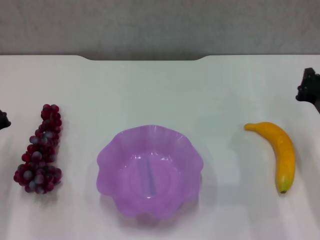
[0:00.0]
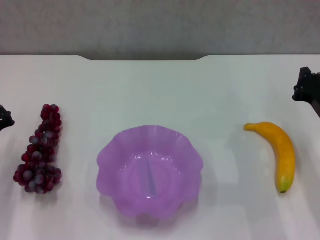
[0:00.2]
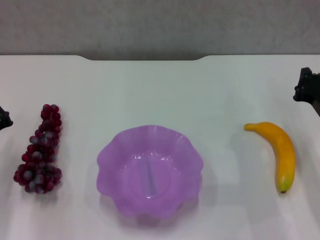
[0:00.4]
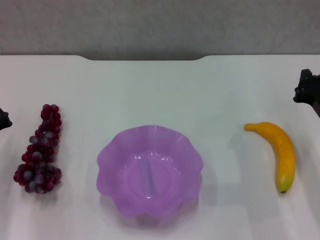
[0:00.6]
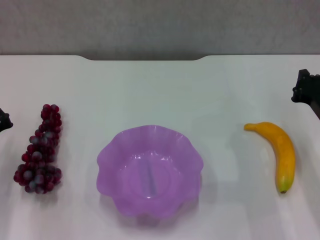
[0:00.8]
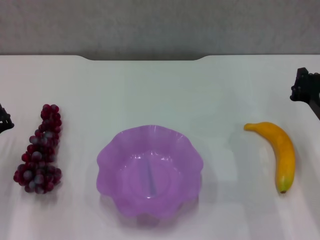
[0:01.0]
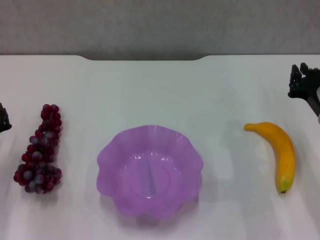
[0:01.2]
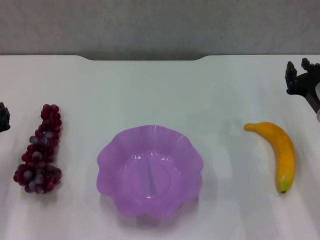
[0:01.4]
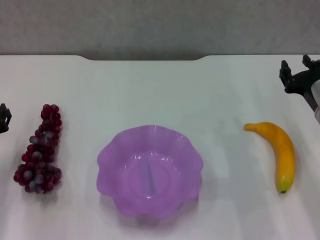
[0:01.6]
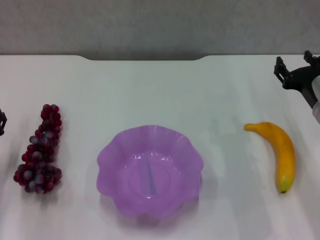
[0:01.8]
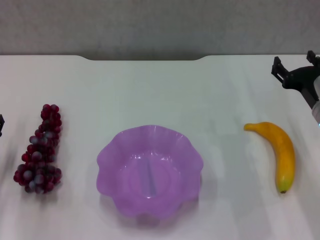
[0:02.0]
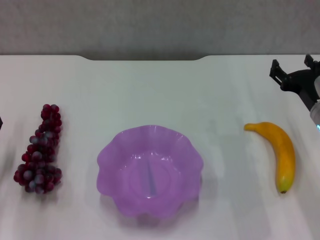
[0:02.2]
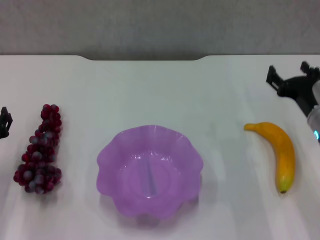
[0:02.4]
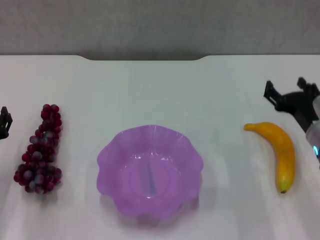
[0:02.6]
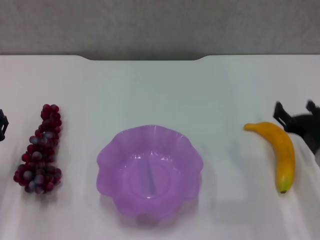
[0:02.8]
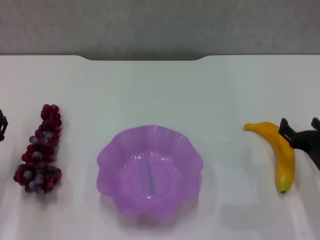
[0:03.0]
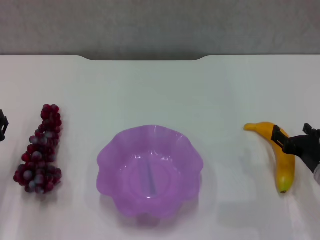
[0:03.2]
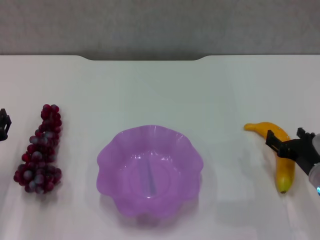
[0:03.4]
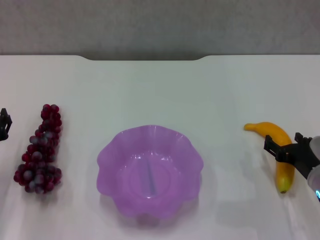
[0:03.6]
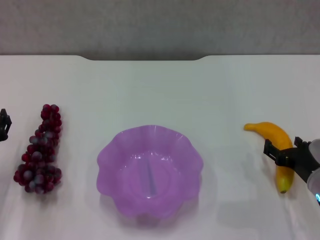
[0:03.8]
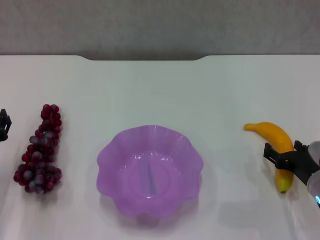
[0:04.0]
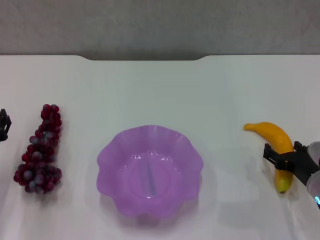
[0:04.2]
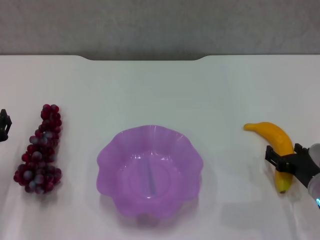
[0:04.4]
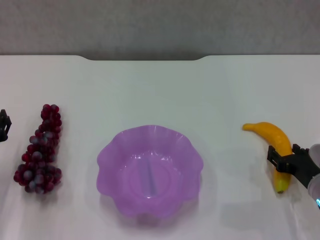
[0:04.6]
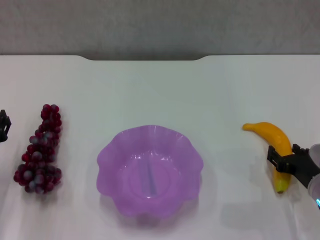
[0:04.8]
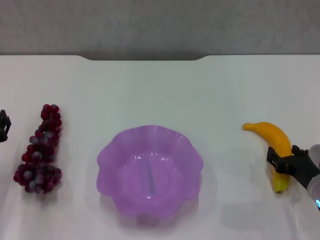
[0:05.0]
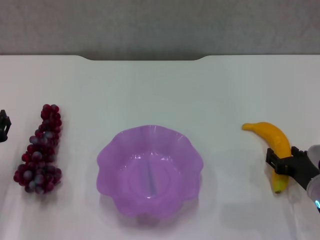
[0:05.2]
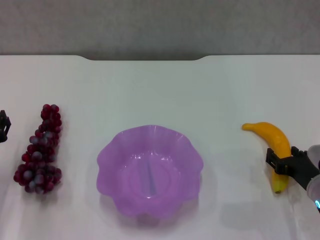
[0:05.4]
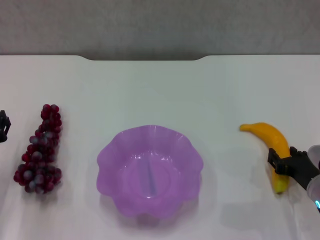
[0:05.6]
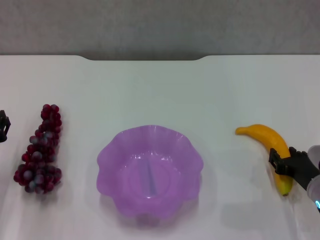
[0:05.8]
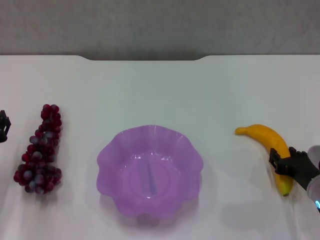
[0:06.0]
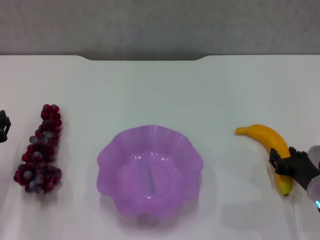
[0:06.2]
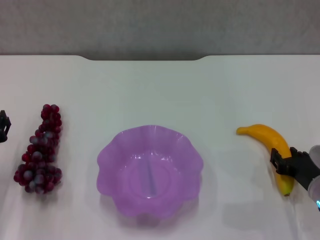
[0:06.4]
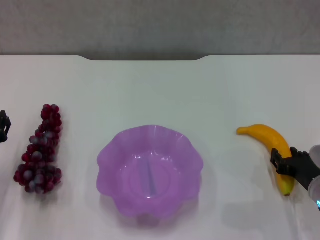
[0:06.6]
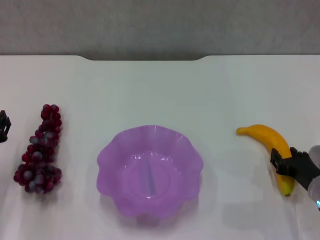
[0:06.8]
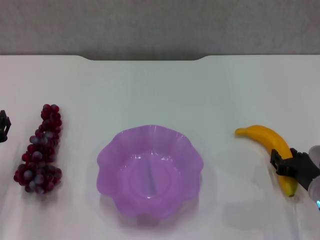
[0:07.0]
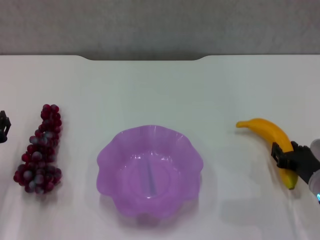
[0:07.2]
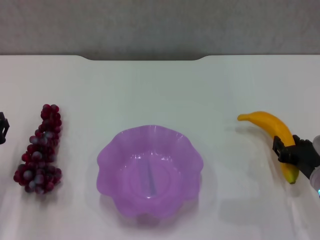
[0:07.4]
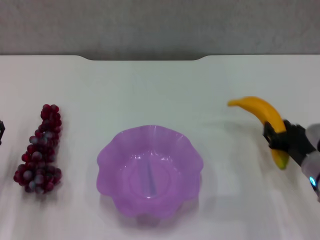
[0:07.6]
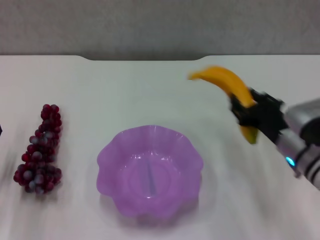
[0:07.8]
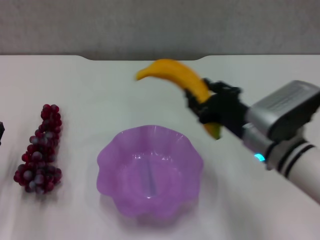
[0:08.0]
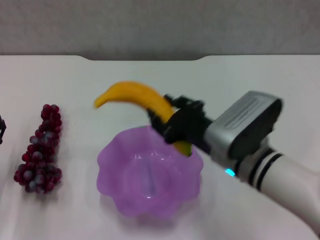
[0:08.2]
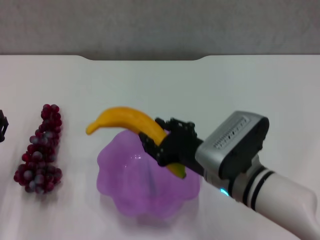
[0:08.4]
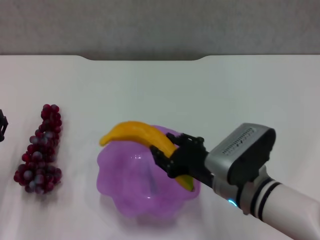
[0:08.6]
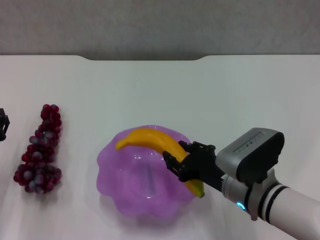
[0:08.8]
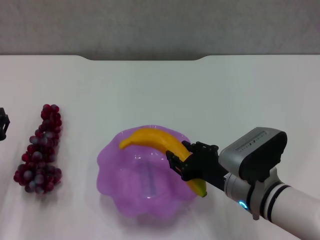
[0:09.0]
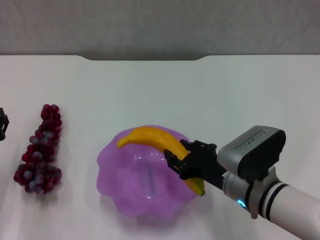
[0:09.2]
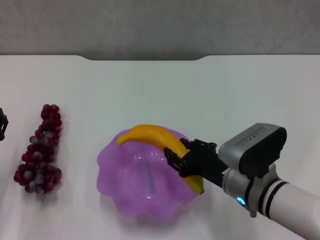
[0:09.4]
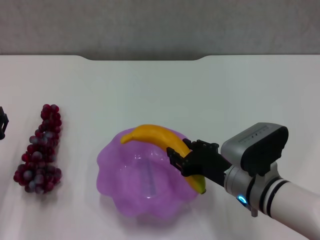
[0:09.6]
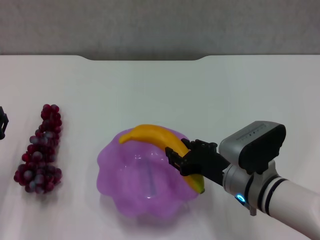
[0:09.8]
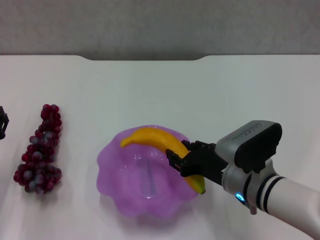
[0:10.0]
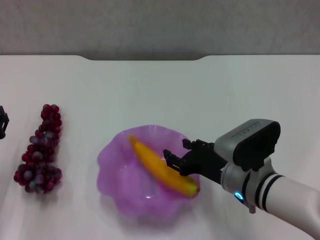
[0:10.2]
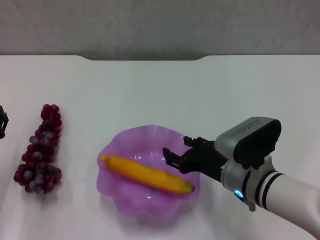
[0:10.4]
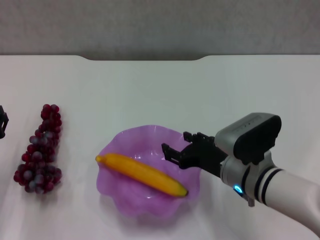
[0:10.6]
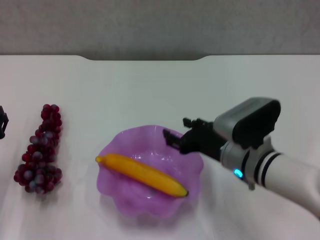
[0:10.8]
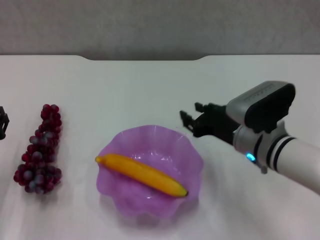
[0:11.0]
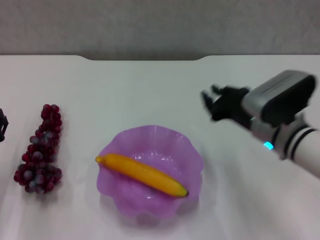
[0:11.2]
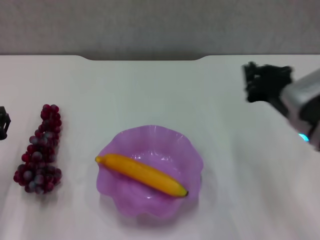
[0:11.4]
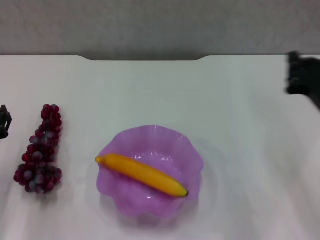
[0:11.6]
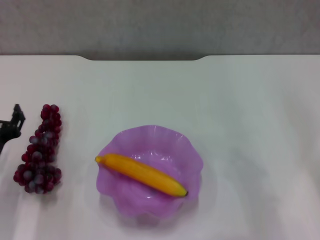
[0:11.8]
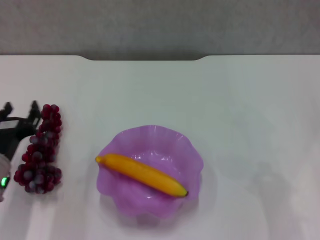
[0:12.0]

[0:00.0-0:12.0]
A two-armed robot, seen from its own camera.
Step, 0:00.0 to 0:06.0: Grasp the banana with right gripper.
Step, 0:06.4 to 0:10.4: Place the banana in the purple plate with right gripper.
0:01.6 to 0:03.0: The right gripper shifts roughly 10 cm backward and downward, and opens up.
0:03.0 to 0:04.4: The grippers make only small movements.
0:04.4 to 0:06.0: The right gripper closes up.
0:06.0 to 0:07.6: The grippers make only small movements.
0:07.6 to 0:09.0: The right gripper goes approximately 10 cm to the left.
0:09.0 to 0:10.4: The grippers move only a little.
0:10.4 to 0:12.0: The right gripper moves to the right, roughly 20 cm, and closes.

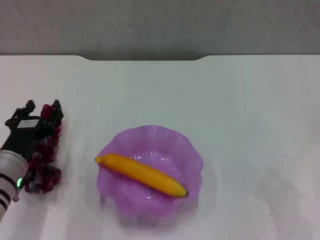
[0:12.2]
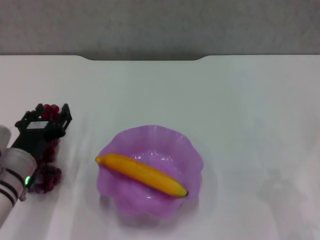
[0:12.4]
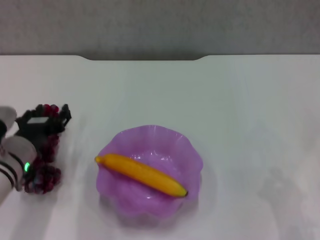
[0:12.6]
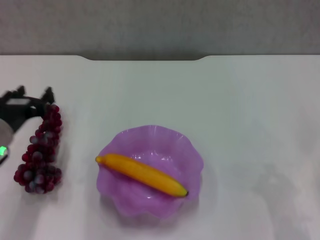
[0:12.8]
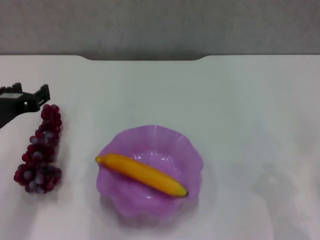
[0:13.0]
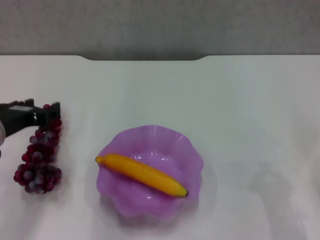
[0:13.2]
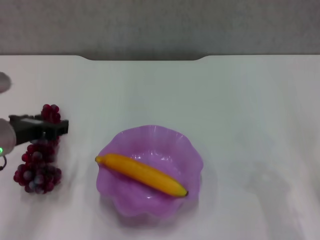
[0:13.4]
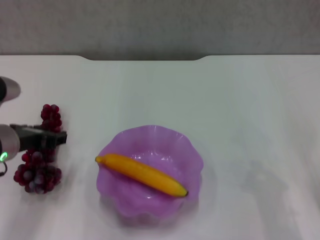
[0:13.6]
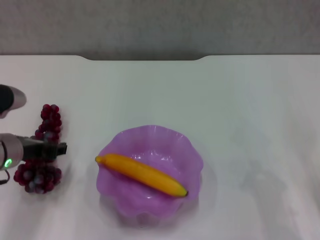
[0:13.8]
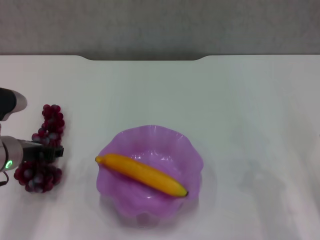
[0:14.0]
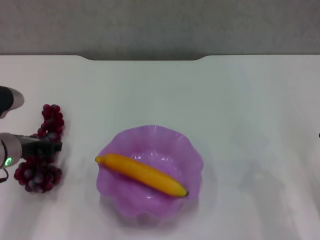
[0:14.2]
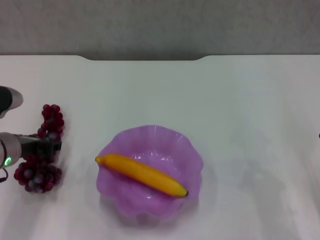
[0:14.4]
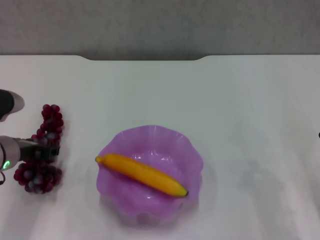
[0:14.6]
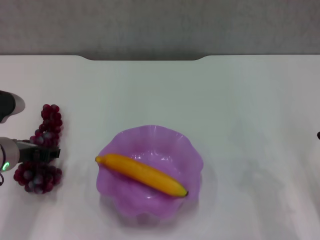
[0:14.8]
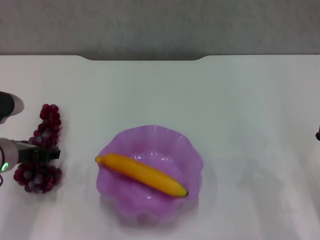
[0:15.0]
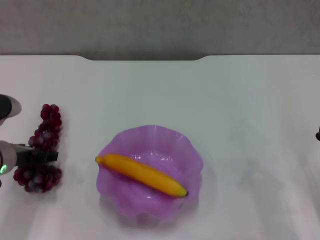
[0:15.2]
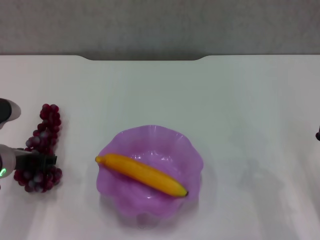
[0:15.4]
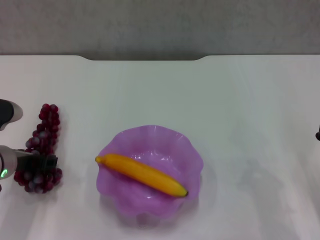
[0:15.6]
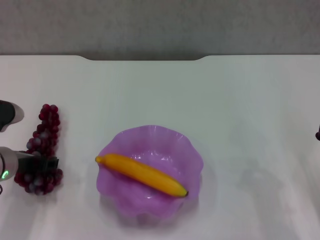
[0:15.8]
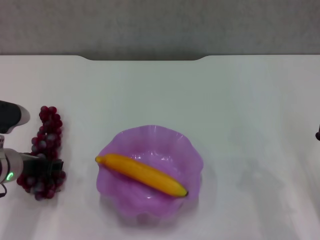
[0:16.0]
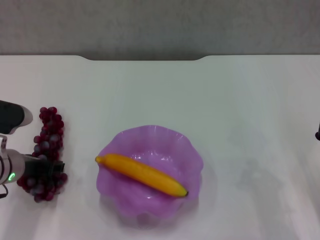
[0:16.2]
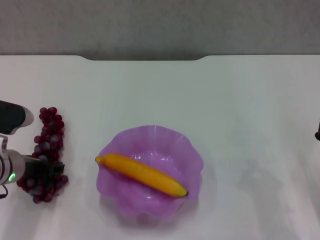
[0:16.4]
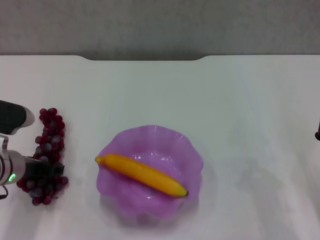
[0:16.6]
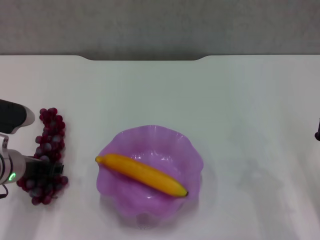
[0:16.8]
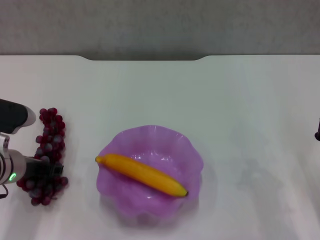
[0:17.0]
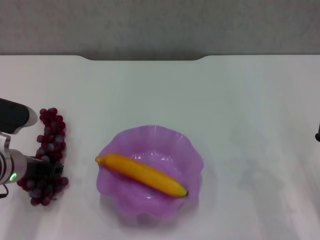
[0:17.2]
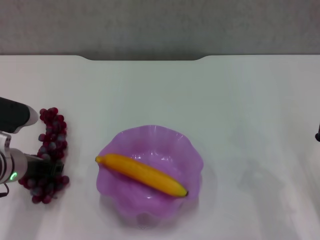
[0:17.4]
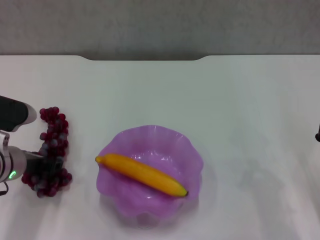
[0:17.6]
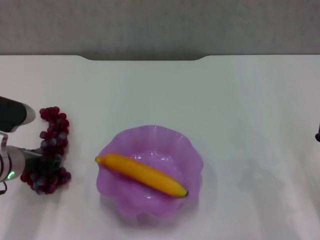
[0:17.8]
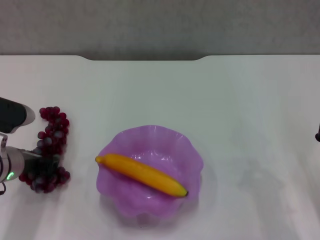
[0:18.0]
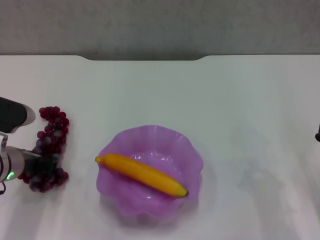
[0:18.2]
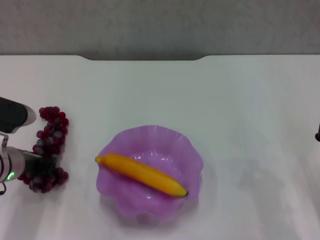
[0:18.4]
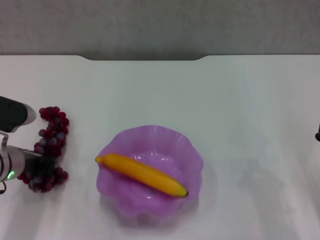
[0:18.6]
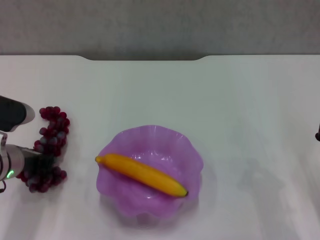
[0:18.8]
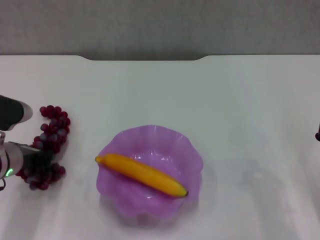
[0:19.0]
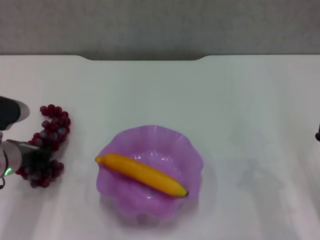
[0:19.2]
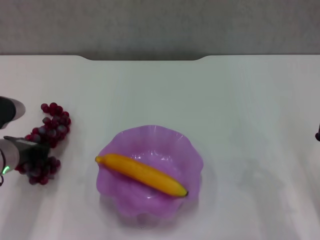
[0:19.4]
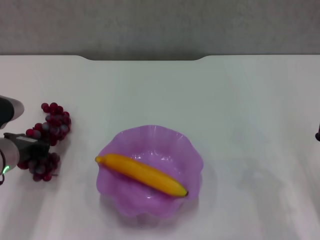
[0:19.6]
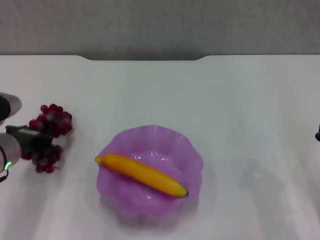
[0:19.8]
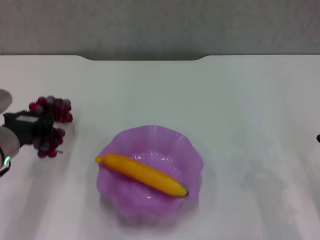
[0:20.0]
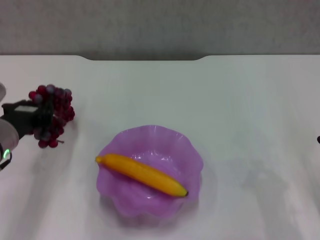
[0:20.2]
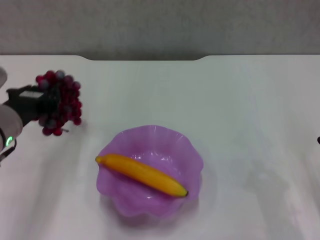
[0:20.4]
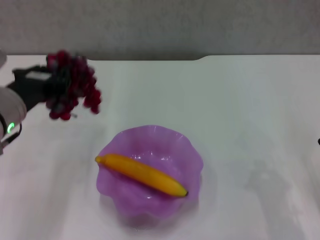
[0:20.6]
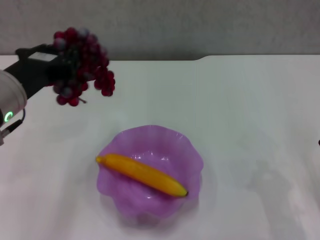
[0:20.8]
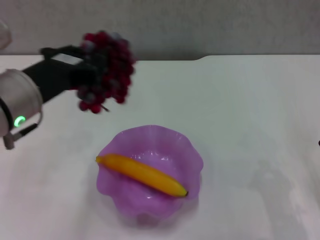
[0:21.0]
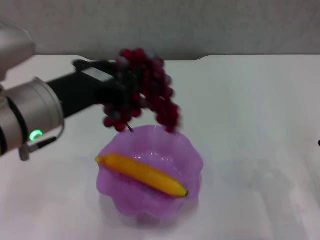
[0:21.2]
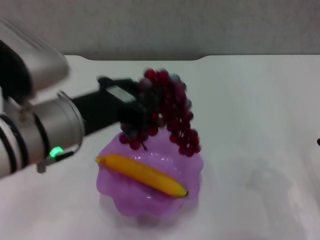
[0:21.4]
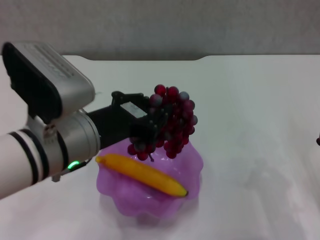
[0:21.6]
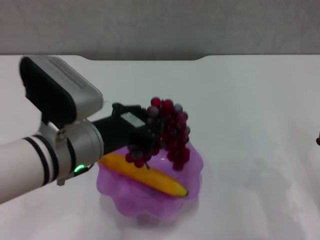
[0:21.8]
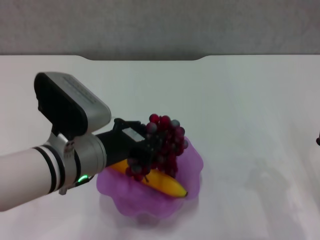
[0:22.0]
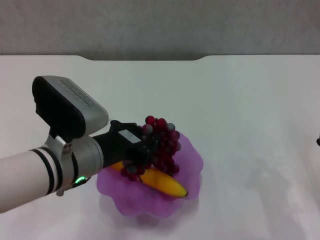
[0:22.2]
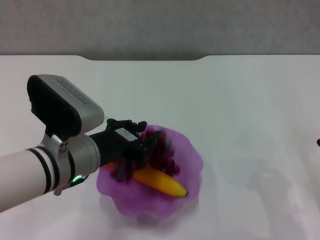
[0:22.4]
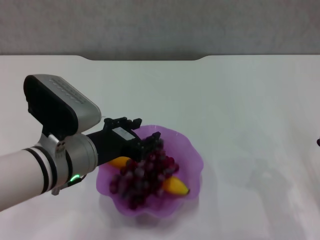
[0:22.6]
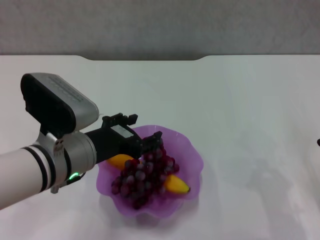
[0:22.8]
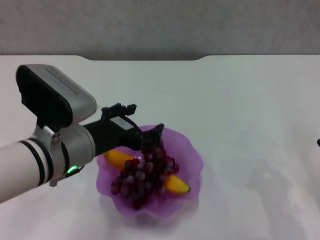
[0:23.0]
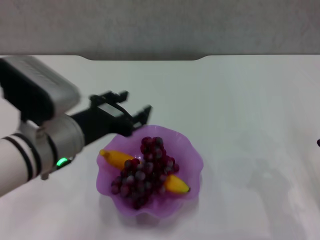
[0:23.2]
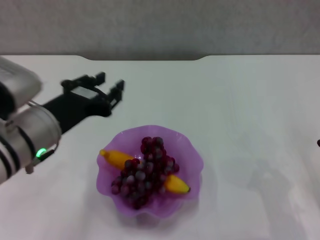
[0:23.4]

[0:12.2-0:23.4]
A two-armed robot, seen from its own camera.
Step, 0:12.2 to 0:18.6: Grasp the grape with left gripper.
Step, 0:18.8 to 0:22.8: Place the grape in the purple plate with left gripper.
0:12.2 to 0:13.8: The left gripper goes about 5 cm upward.
0:13.8 to 0:17.0: The grippers make only small movements.
0:17.0 to 0:18.6: The left gripper closes its fingers.
0:20.2 to 0:21.8: The left gripper travels to the right by roughly 10 cm.
0:21.8 to 0:23.4: The left gripper opens up.
